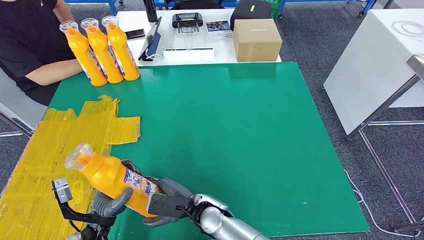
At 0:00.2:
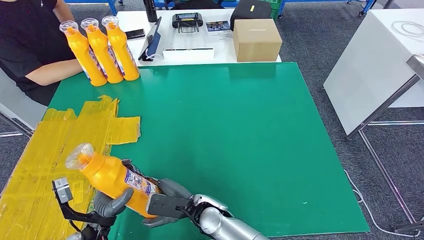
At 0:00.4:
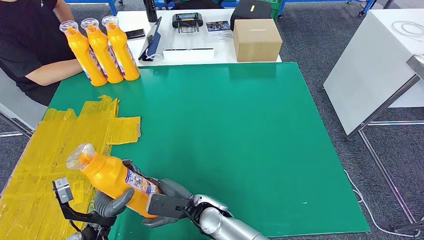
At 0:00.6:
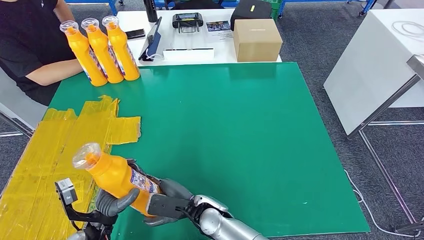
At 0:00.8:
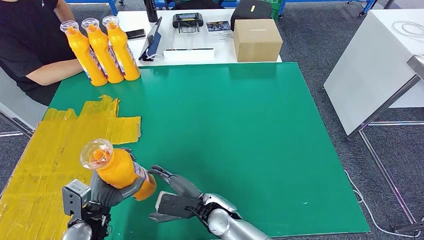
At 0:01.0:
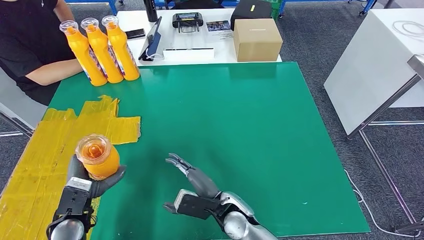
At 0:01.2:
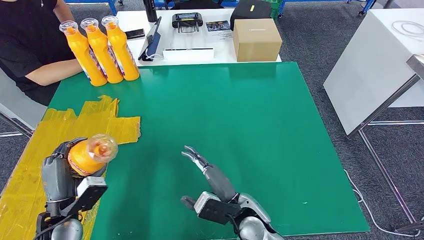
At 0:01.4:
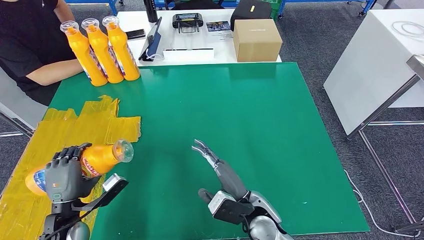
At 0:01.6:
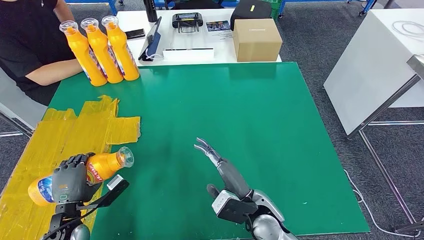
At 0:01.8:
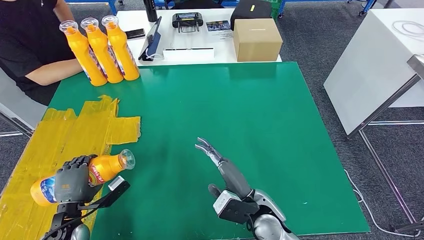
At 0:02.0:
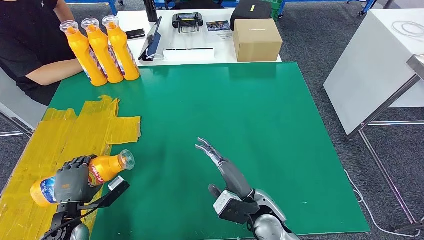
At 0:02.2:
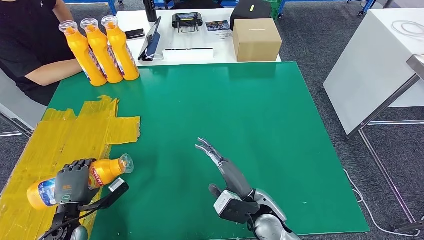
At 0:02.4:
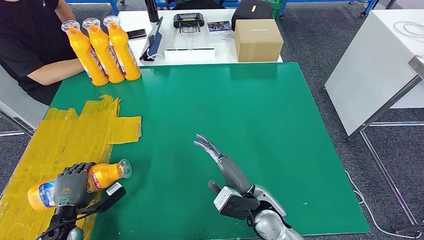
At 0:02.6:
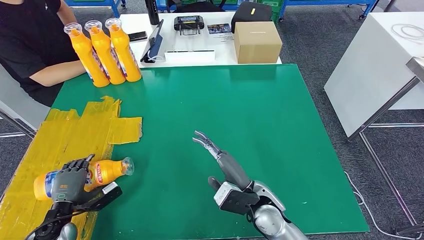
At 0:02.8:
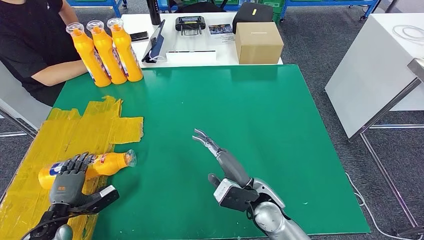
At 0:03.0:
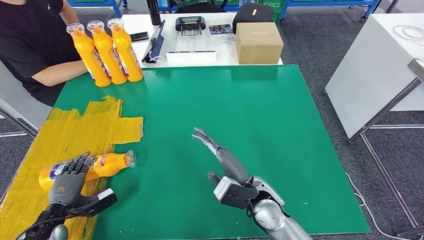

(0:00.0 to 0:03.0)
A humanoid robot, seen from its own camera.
Step, 0:00.0 - 0:03.0: Flip the fast-moving consumer goods bottle to the front side.
0:00.0 - 0:01.6: The left hand goes some 10 cm to the left. Meanwhile the right hand travels to the right by roughly 10 cm.
